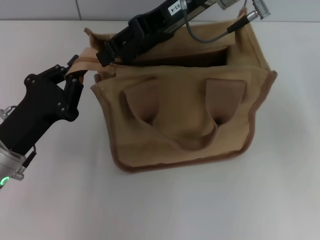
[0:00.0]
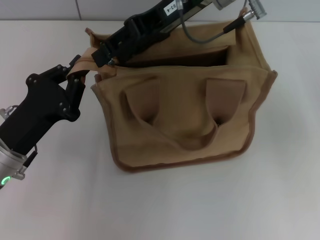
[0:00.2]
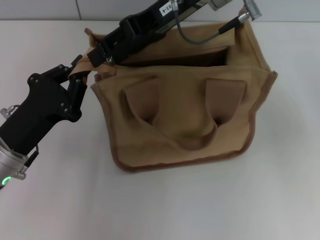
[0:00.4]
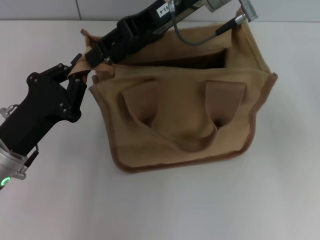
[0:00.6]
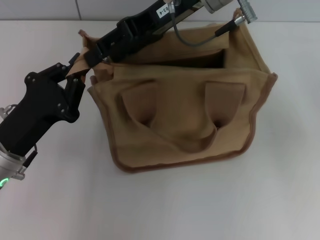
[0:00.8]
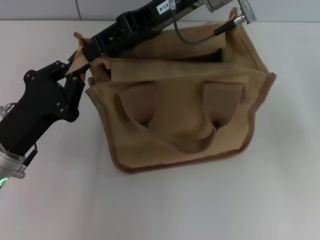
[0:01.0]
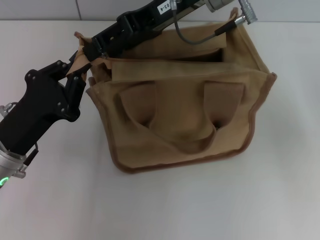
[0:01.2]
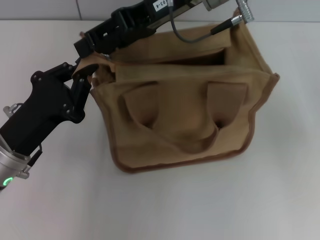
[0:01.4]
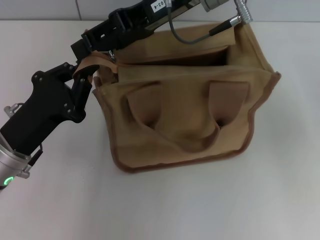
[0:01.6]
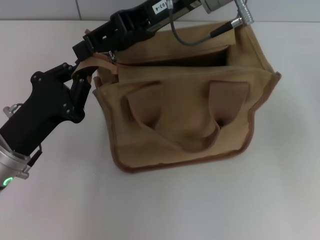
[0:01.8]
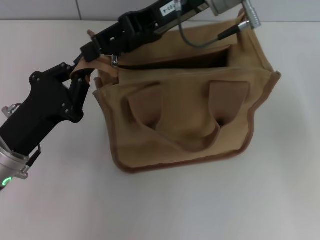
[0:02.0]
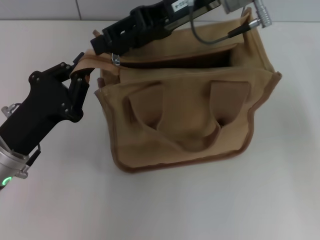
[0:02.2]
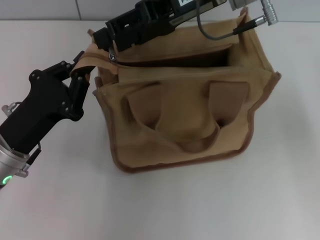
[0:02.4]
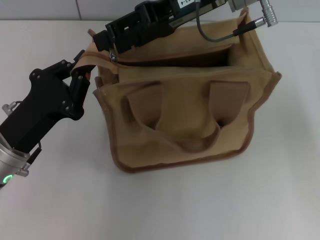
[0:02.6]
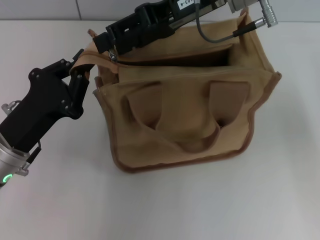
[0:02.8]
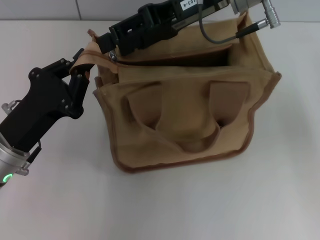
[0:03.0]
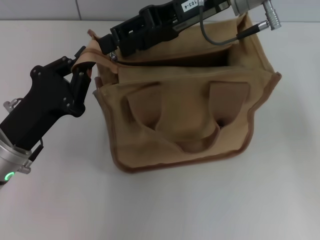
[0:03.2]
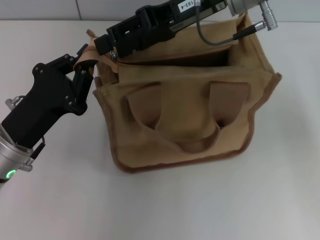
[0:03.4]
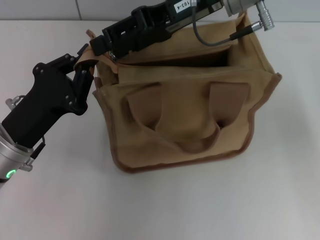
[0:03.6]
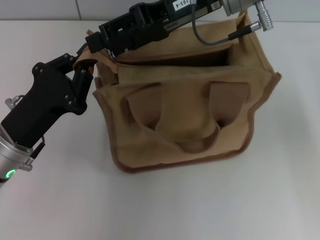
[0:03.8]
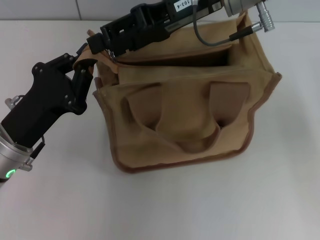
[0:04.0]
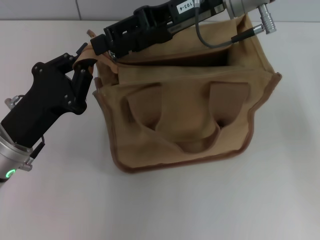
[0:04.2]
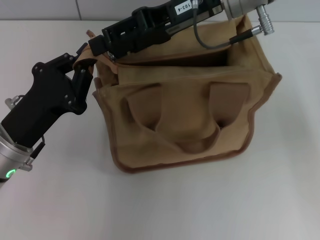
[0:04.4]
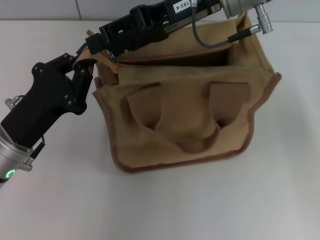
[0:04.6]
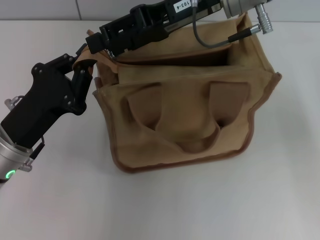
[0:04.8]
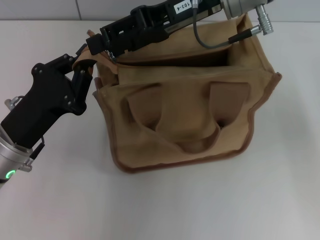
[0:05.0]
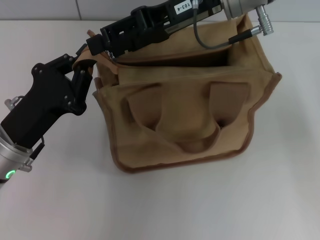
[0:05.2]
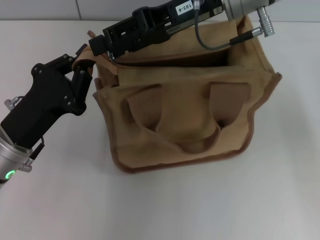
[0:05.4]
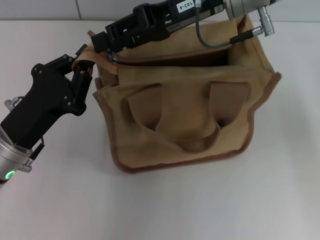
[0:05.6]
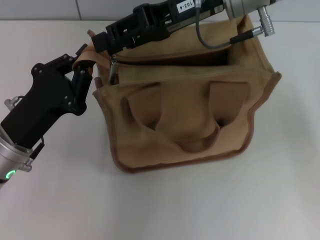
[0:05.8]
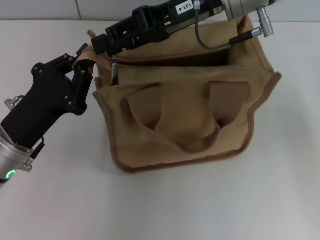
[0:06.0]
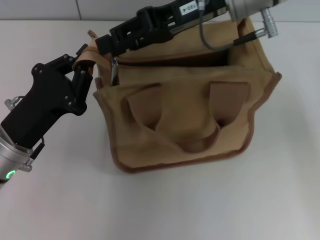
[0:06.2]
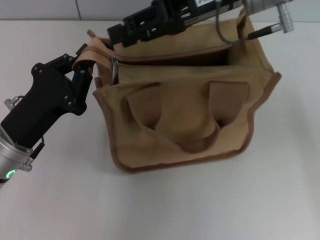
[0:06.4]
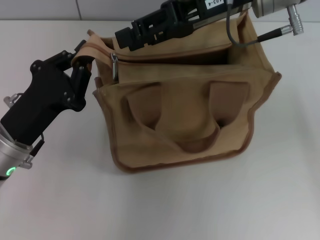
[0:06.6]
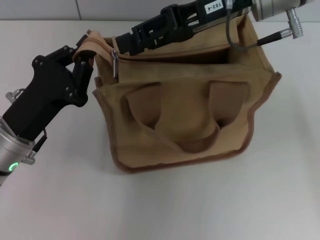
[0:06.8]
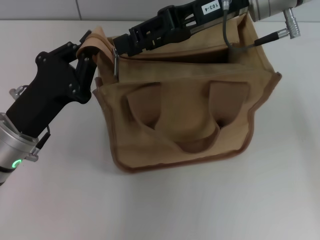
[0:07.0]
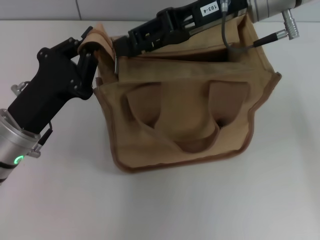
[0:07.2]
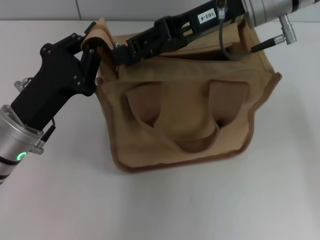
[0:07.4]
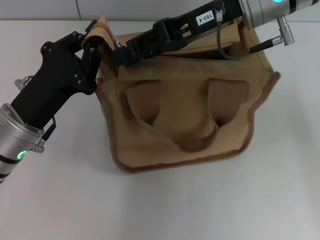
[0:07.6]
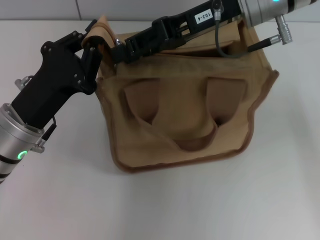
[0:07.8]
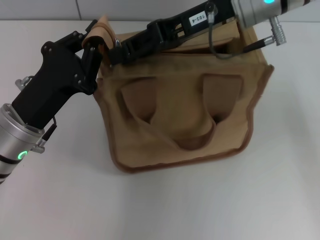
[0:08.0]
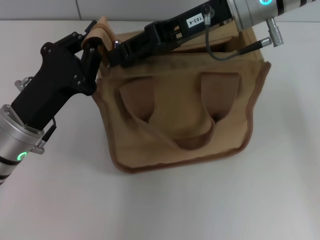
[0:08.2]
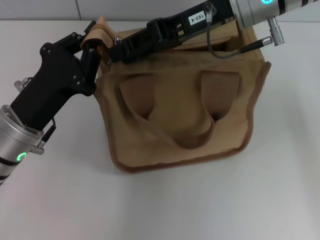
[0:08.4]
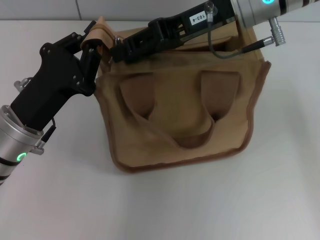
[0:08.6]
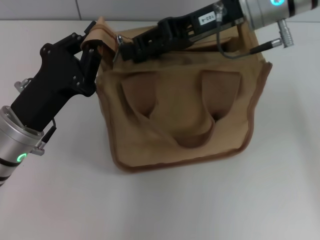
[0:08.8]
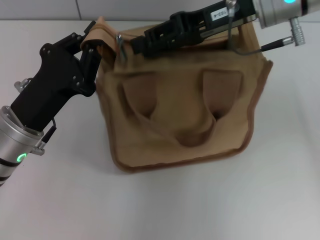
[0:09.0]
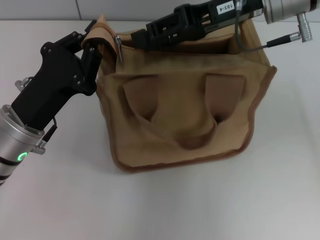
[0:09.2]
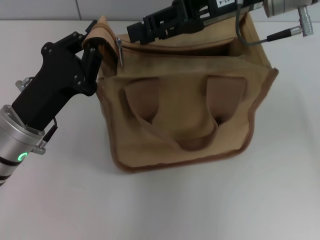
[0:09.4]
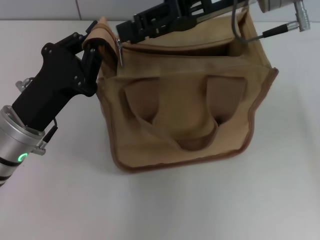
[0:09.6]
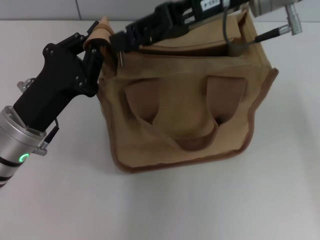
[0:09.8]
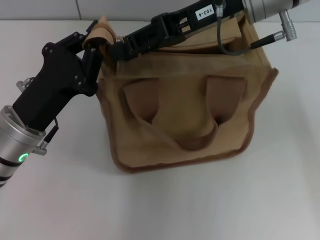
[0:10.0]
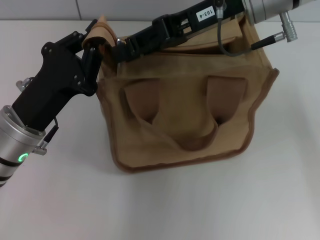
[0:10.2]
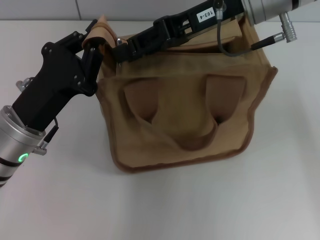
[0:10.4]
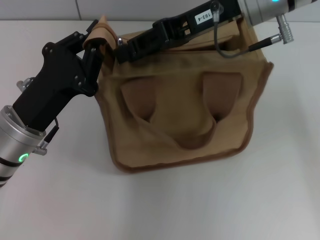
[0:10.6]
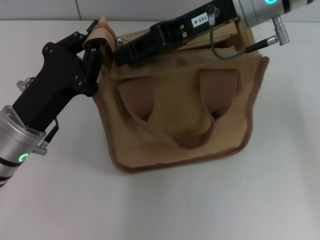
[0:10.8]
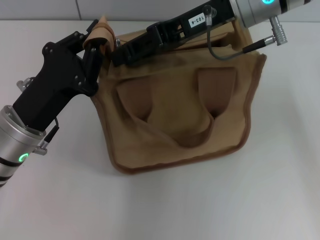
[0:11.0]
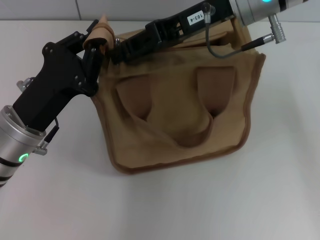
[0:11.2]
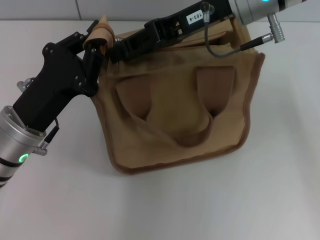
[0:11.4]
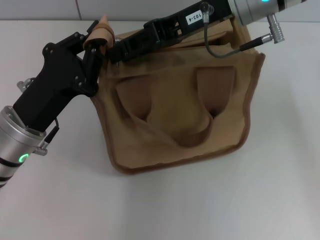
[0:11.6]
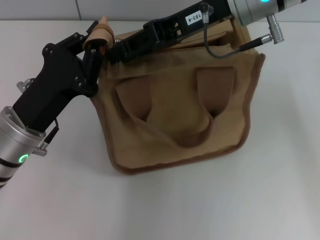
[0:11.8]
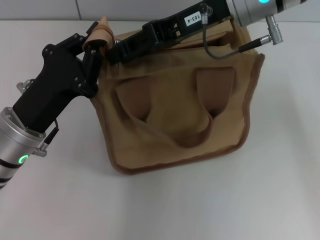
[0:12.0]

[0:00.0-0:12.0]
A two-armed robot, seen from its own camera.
0:00.0 to 0:03.0: The grippers move only a little.
0:03.0 to 0:04.4: Both grippers stay put.
0:04.4 to 0:06.0: Both grippers stay about where they are.
0:06.0 to 0:10.4: There are only small adjustments of the grippers.
0:10.4 to 0:12.0: Neither gripper changes place.

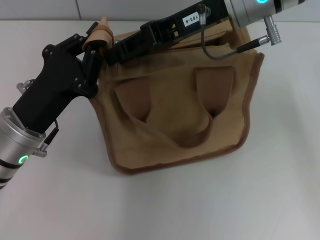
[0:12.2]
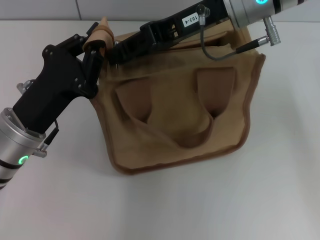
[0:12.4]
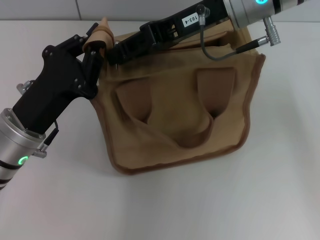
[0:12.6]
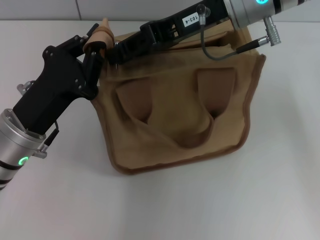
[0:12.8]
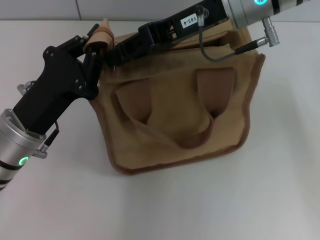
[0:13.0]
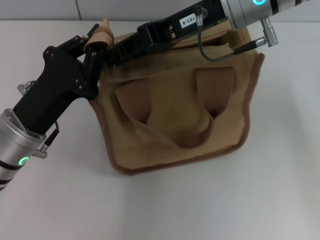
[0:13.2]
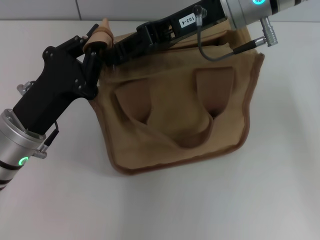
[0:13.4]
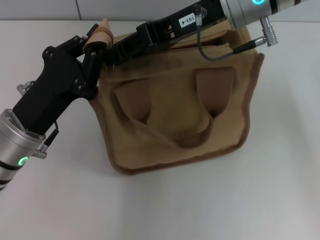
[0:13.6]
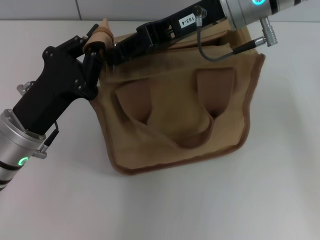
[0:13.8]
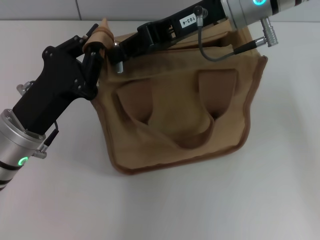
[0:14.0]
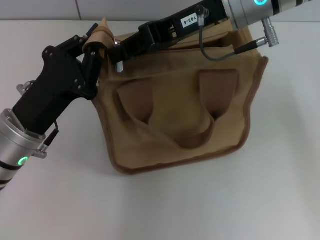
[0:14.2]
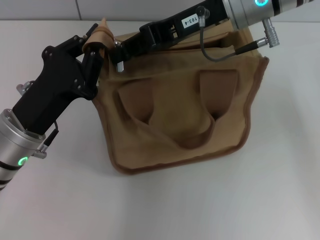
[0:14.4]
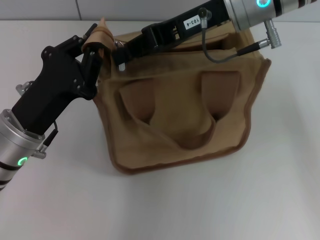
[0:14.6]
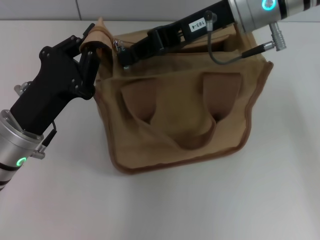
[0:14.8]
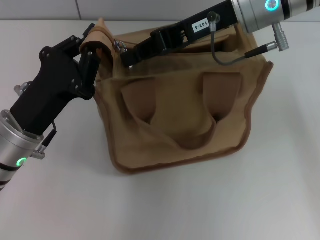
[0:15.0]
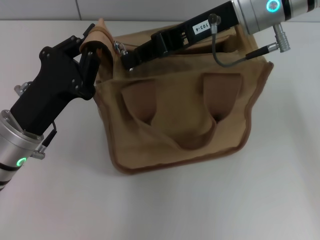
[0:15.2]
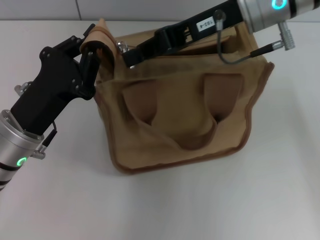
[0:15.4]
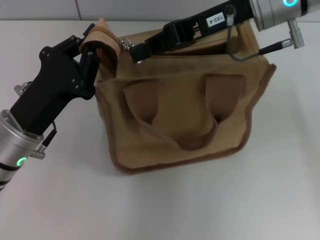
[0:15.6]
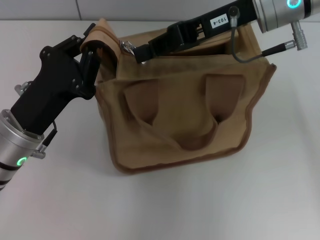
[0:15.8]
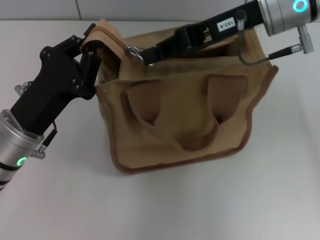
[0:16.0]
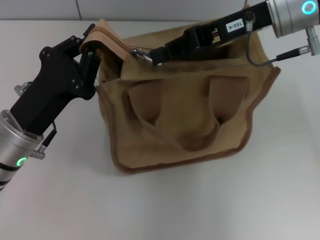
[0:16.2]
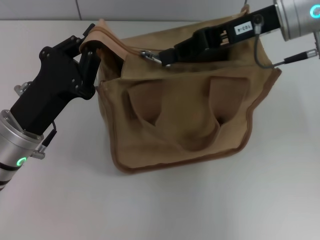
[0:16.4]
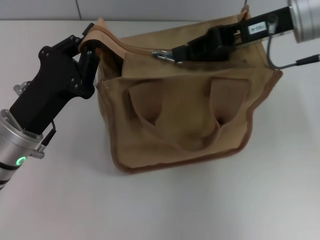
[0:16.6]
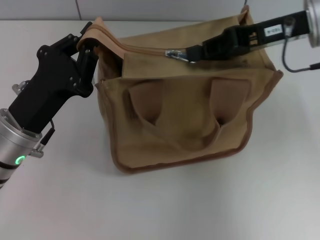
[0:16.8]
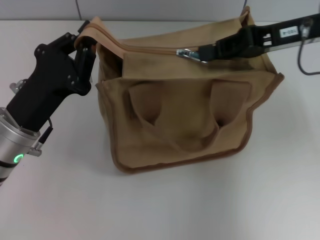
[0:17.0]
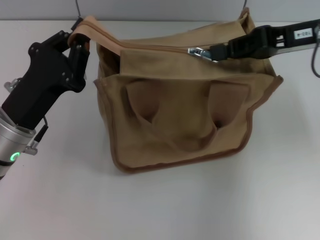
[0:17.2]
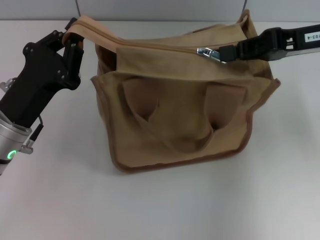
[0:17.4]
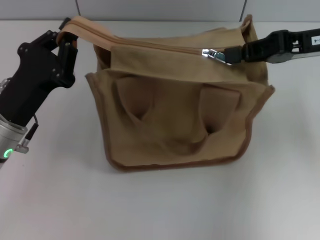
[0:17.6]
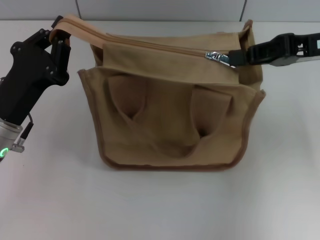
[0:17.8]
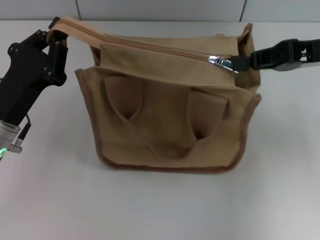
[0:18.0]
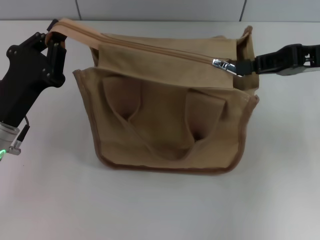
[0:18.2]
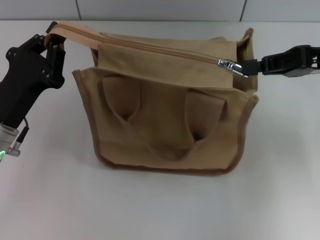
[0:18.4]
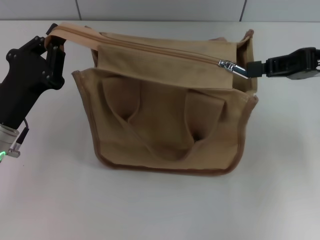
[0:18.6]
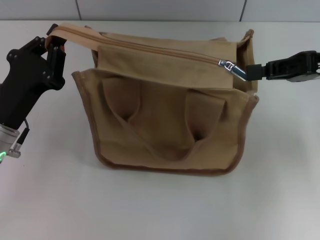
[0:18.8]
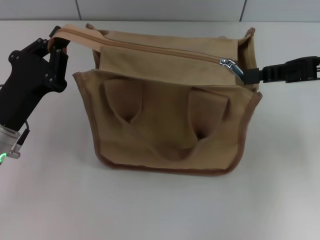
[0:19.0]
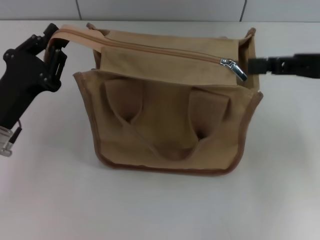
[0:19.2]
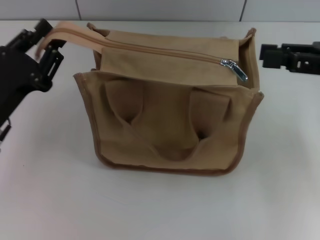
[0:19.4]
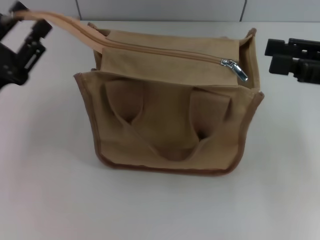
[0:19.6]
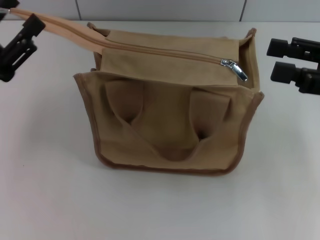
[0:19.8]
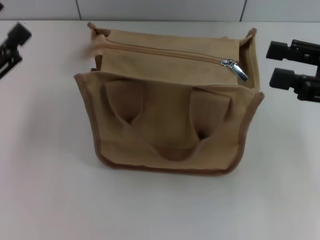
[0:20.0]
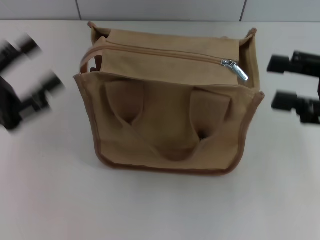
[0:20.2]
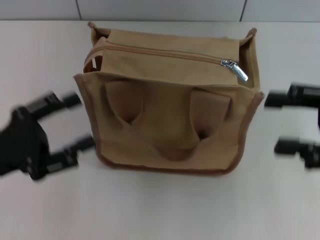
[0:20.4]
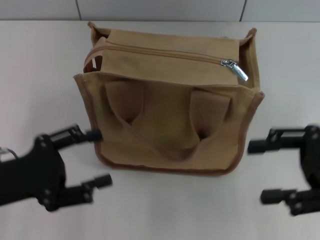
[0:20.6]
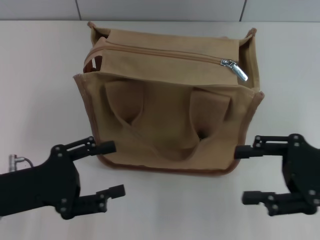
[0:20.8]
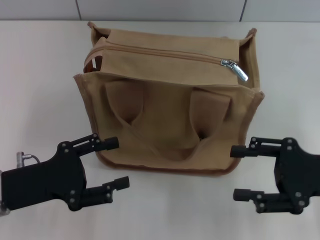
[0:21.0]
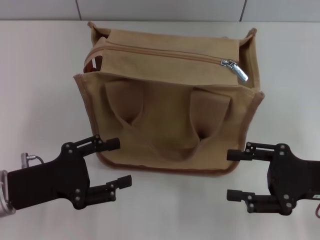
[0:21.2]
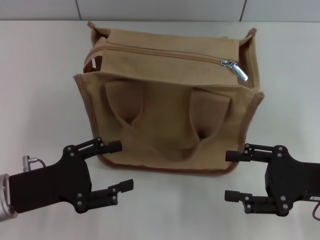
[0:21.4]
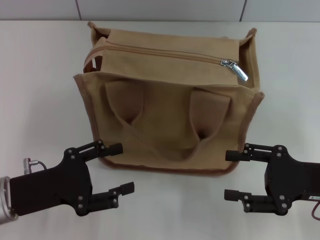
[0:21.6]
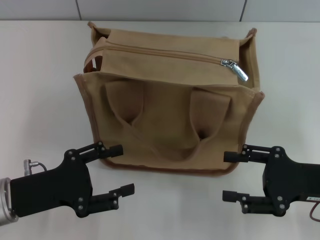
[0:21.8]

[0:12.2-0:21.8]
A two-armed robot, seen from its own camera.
Step, 0:12.2 to 0:19.4: Pull up the zipper with your right hand.
Step, 0:19.6 to 0:20.0: Grab the zipper with your left hand.
0:12.2 to 0:13.8: Neither gripper changes place.
0:13.8 to 0:15.4: The right gripper closes up.
0:15.4 to 0:17.0: The right gripper travels to the right by approximately 10 cm.
0:17.0 to 0:18.6: The right gripper moves to the right, some 5 cm.
0:18.6 to 0:20.2: The right gripper is displaced backward by roughly 5 cm, and opens. The left gripper travels to the left by about 5 cm, and opens.
0:20.2 to 0:21.8: The right gripper is displaced downward by roughly 10 cm. The left gripper travels downward and to the right by approximately 10 cm.
